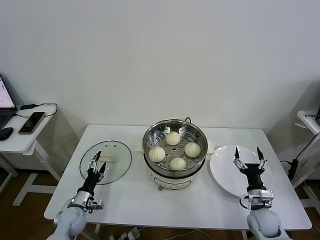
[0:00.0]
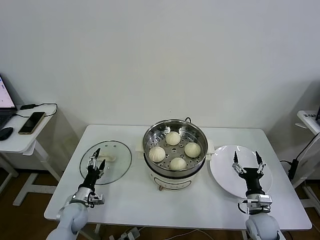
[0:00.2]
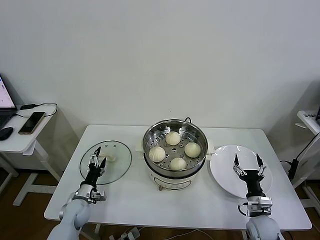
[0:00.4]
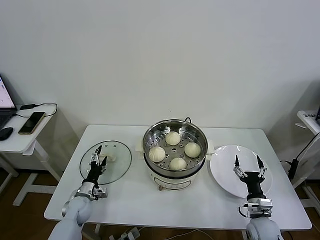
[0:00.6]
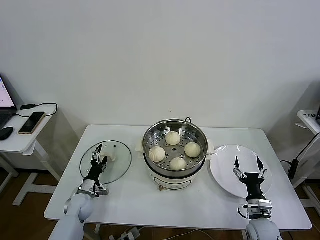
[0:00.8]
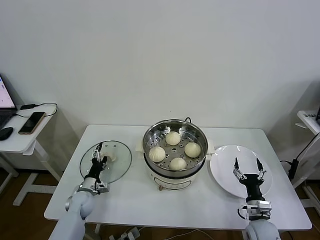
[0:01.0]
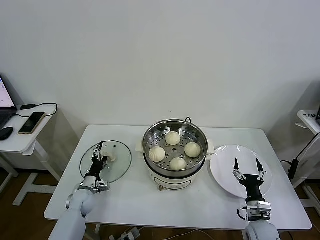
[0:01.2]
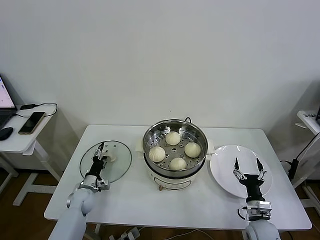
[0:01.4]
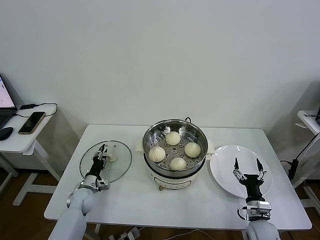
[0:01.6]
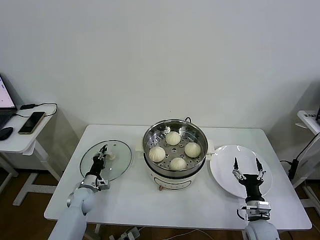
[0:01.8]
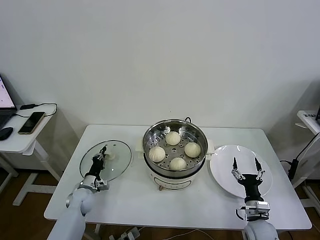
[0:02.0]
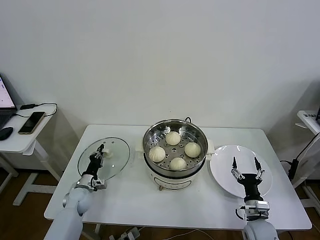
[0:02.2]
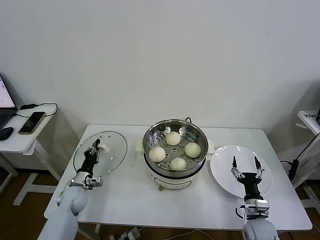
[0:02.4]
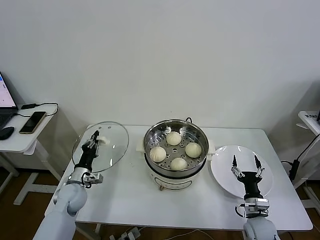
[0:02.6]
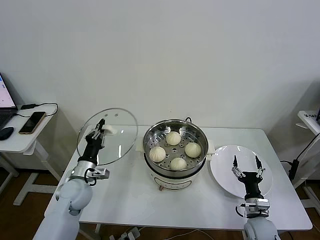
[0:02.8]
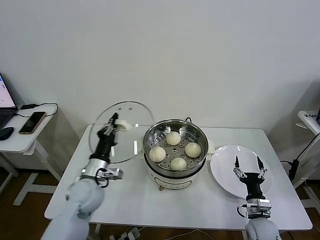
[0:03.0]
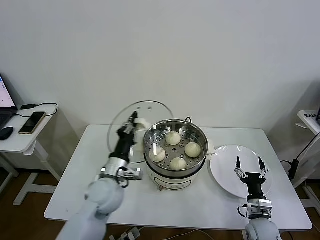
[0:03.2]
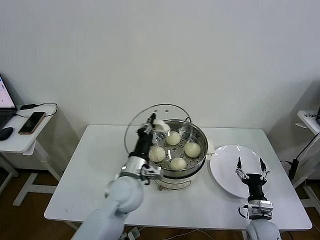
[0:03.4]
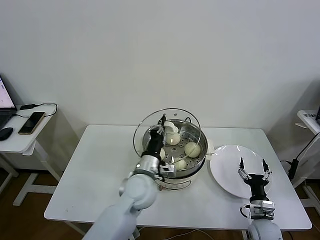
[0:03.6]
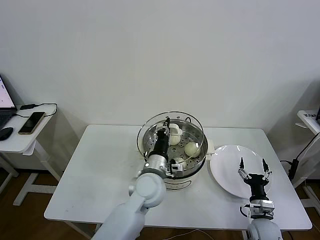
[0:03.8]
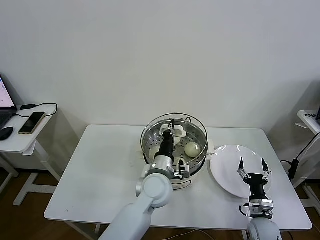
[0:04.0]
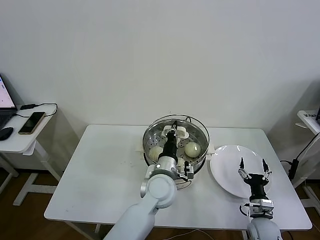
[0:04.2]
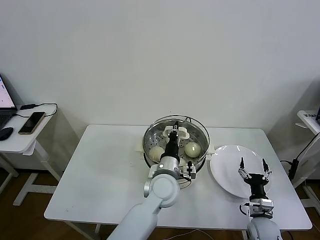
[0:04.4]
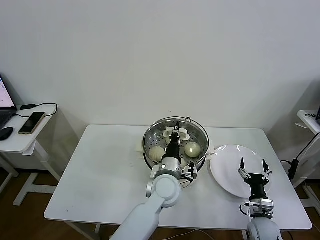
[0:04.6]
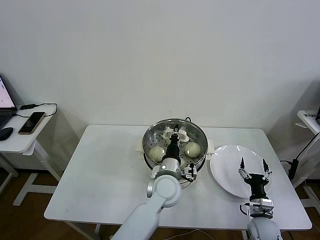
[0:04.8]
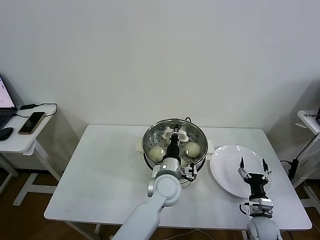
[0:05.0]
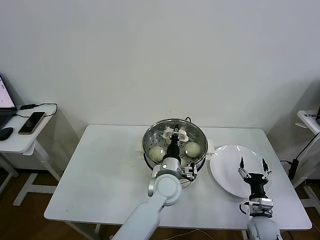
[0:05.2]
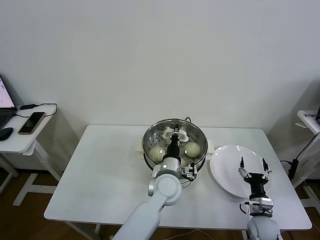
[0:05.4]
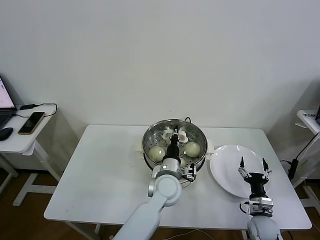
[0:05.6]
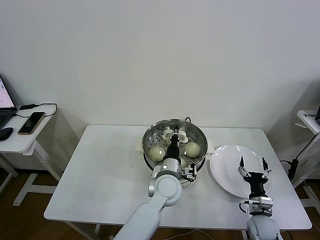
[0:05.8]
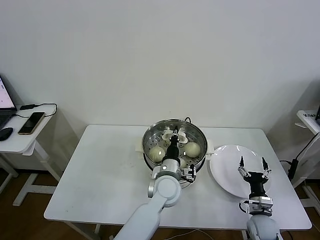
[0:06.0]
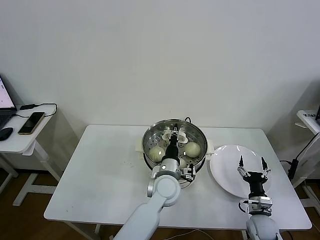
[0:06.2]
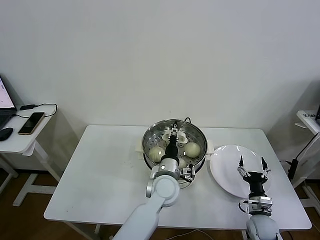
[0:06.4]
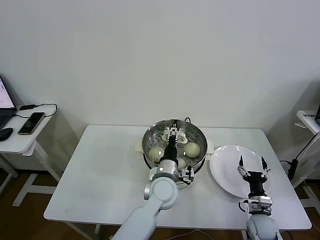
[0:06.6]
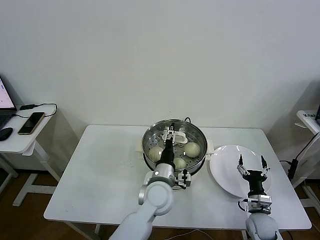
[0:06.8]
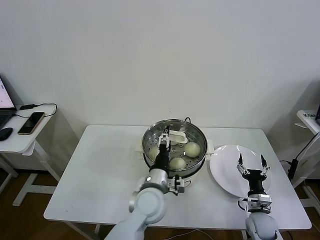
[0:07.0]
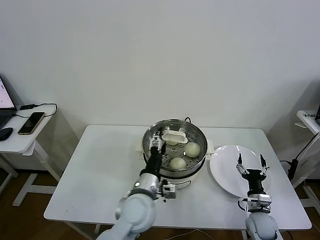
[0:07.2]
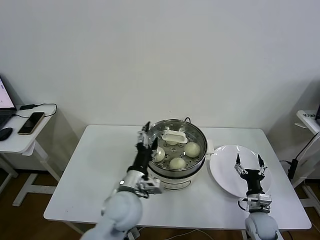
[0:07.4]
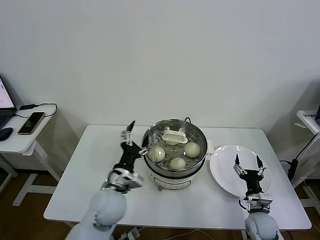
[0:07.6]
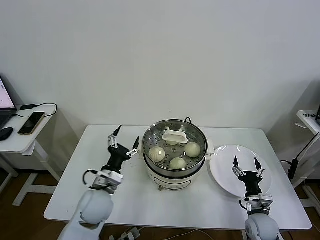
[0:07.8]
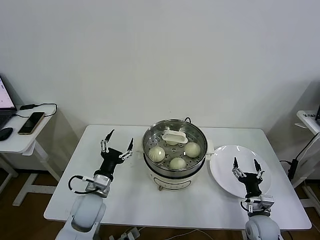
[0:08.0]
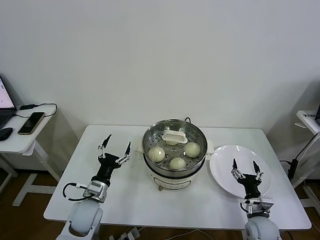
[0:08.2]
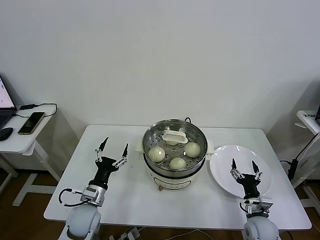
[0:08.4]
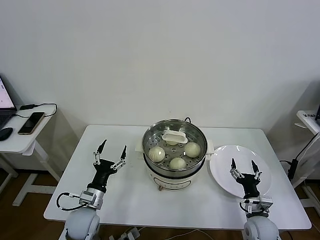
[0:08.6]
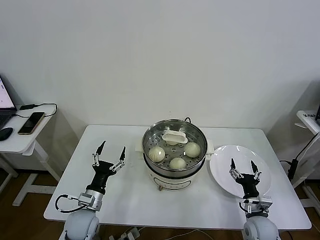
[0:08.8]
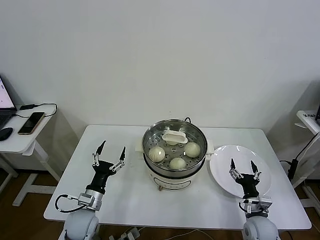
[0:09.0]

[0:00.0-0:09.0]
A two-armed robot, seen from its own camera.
Task of the whole recording: take steamed baozi put them in steamer then cover it.
Step, 0:00.0 to 0:02.0: Grasp the pot lid with left gripper.
Step, 0:02.2 to 0:06.2: Place the pot lid on the steamer with left gripper.
0:00.0 to 0:01.6: The left gripper shifts roughly 10 cm forward, and closes.
0:01.6 to 0:03.0: The left gripper is displaced upward and to the right by about 20 cm, and closes.
0:03.0 to 0:04.4: The left gripper heads to the right, covering approximately 25 cm.
0:04.4 to 0:06.0: The grippers stay close to where they were, moving slightly.
0:06.0 to 0:07.6: The left gripper travels to the left and backward by roughly 15 cm, and opens its fingers.
0:07.6 to 0:09.0: The left gripper moves to the left and downward, about 20 cm.
